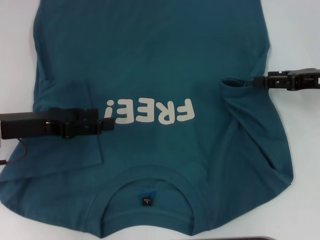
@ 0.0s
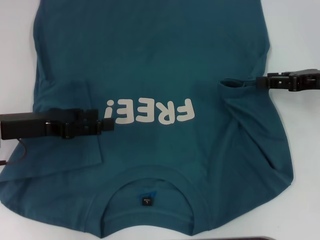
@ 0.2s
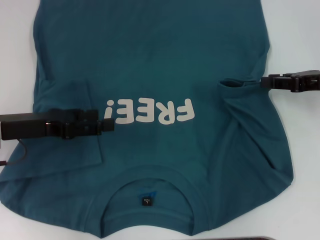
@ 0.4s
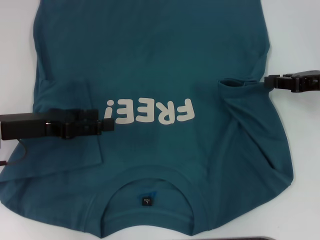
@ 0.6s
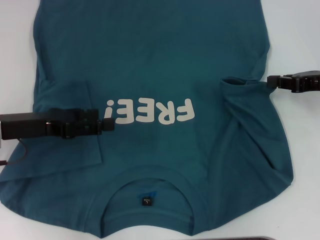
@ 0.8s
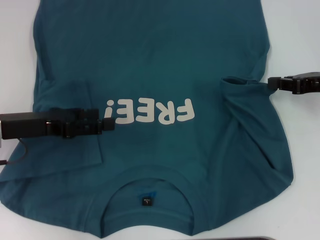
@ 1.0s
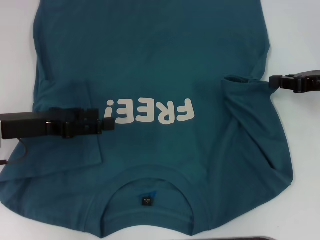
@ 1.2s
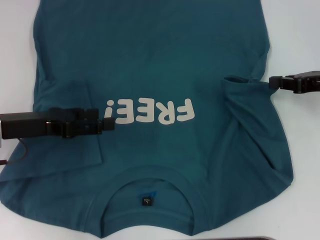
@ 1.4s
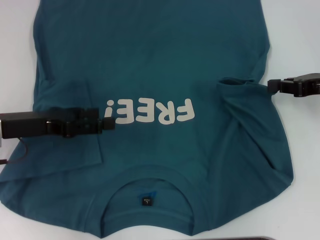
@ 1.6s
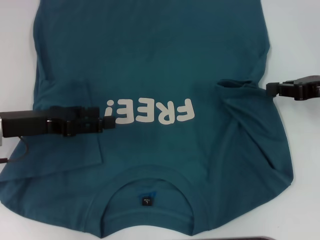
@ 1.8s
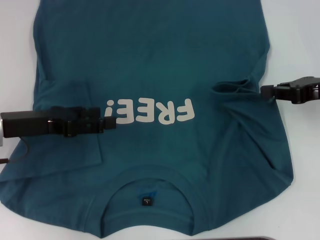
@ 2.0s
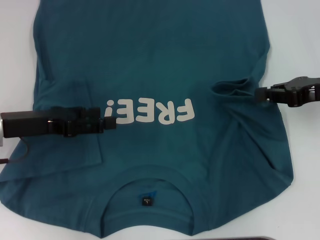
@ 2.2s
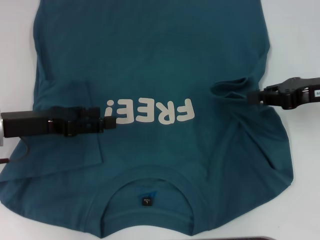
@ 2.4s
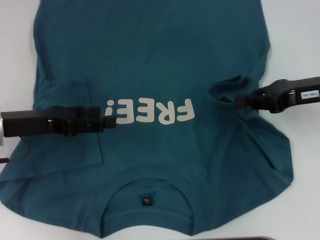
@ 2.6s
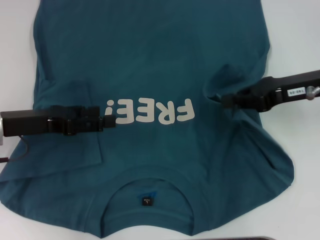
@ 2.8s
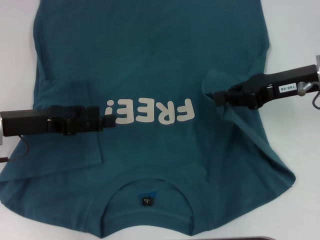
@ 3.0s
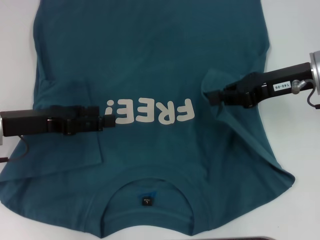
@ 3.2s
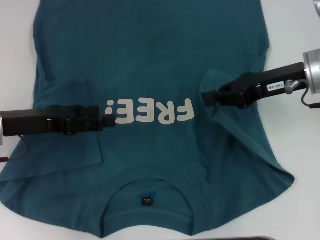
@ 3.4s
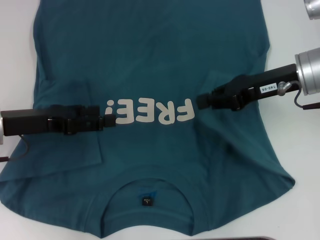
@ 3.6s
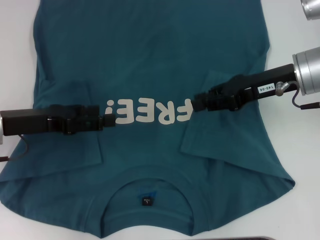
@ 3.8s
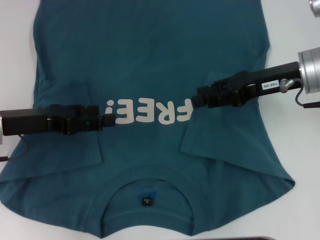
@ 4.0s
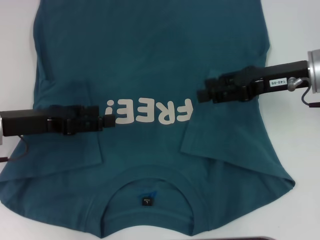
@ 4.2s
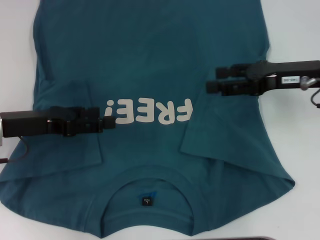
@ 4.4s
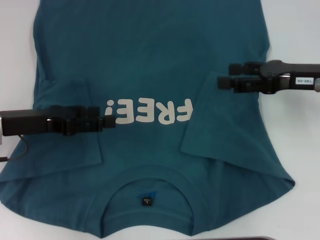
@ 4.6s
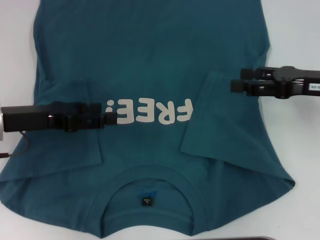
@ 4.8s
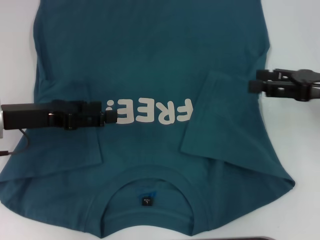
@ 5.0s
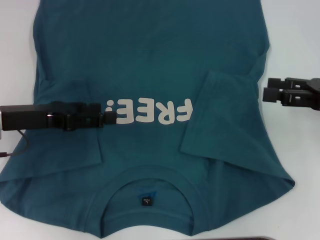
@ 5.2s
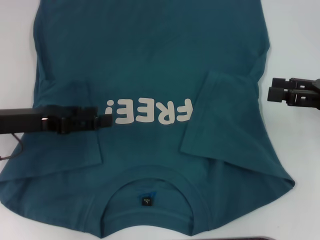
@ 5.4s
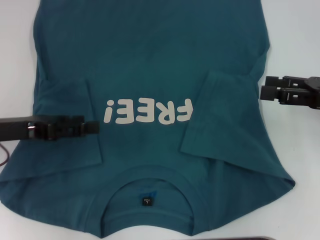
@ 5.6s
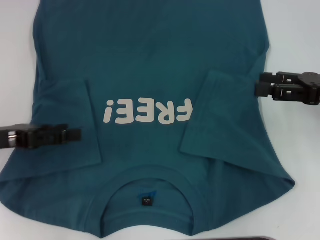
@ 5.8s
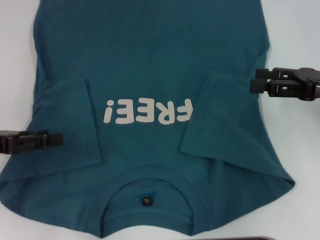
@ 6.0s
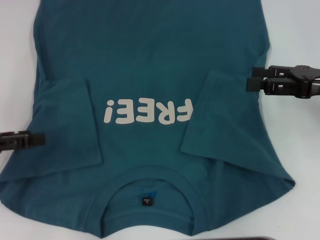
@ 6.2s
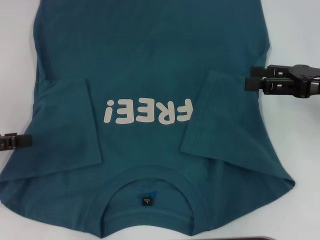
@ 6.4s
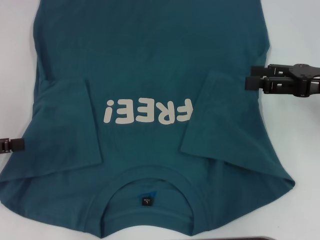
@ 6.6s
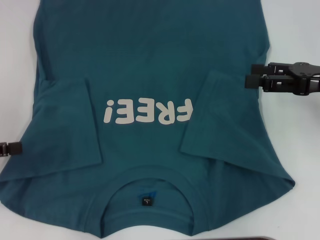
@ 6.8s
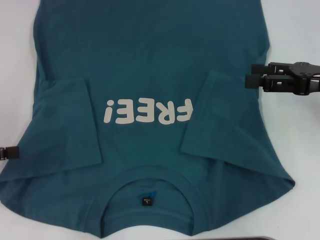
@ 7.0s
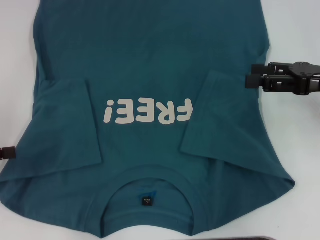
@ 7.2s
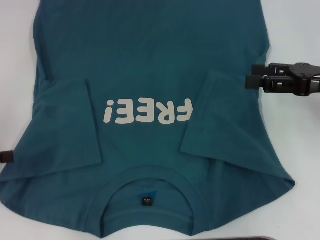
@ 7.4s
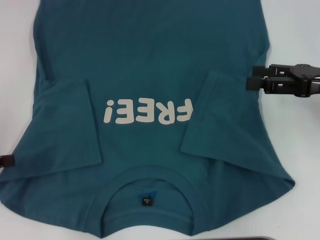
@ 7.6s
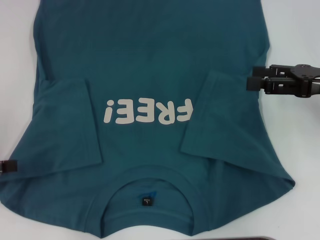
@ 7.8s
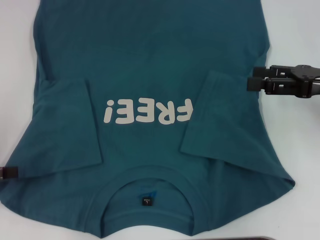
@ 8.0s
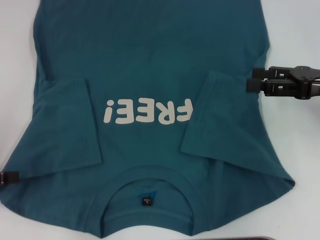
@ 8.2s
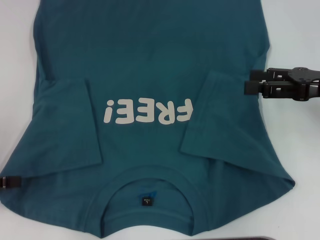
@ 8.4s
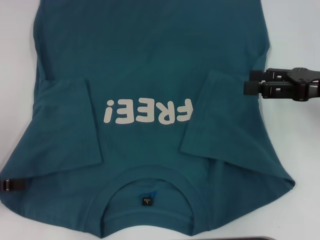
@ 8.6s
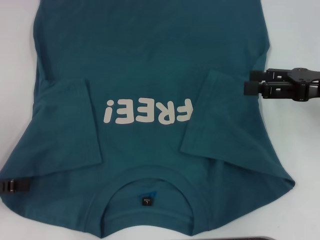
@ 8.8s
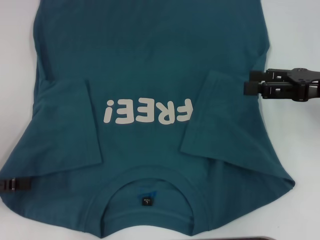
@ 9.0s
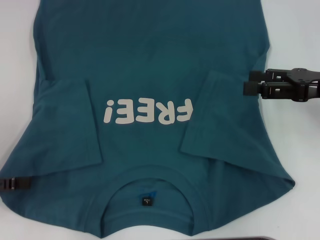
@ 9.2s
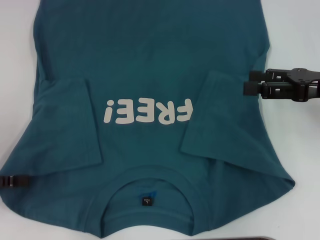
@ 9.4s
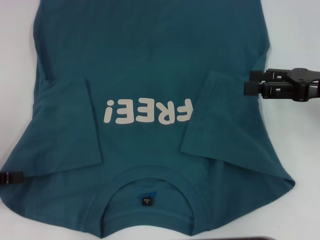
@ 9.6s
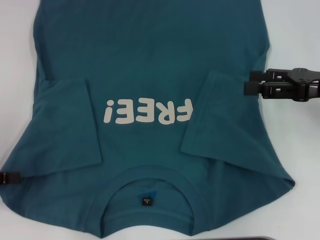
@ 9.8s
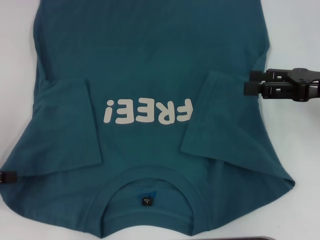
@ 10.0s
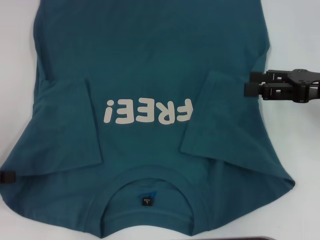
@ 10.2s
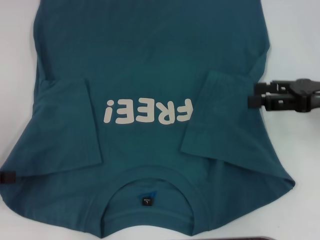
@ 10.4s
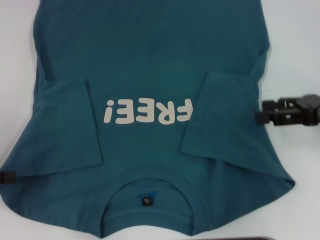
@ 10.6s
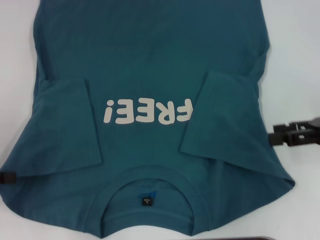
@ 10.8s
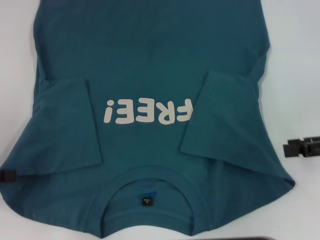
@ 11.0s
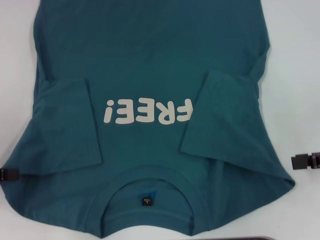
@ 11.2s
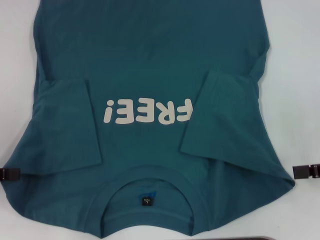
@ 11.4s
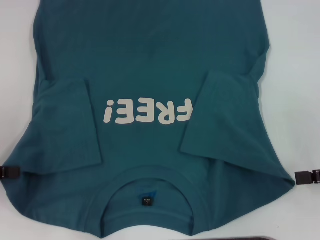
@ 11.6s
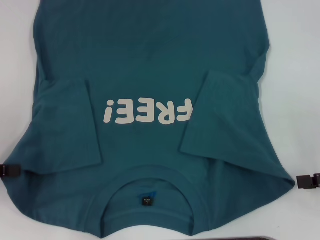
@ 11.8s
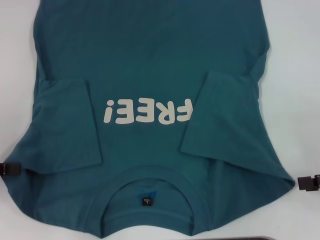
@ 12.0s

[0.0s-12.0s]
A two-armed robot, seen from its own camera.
Step, 0.0s to 10.2s: Grab the bottom left corner with your left hand.
0.0s to 1.6s: The right gripper closes up.
1.6s to 3.0s: The right gripper shifts roughly 10 cm to the left.
3.0s to 4.4s: The right gripper opens.
4.4s to 6.0s: The right gripper travels to the right by about 5 cm, while the left gripper is displaced to the left by approximately 5 cm.
6.0s to 7.6s: The left gripper is displaced to the left by some 5 cm.
7.6s to 9.0s: There are only small adjustments of the grippers.
10.4s to 12.0s: The right gripper shifts approximately 10 cm backward and to the right.

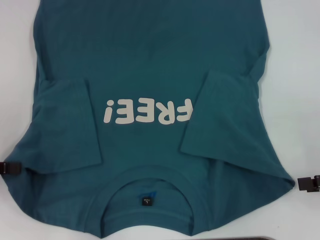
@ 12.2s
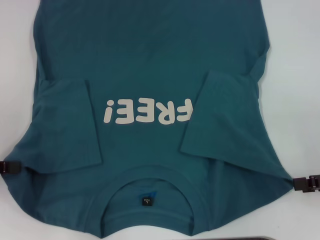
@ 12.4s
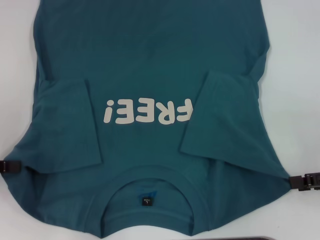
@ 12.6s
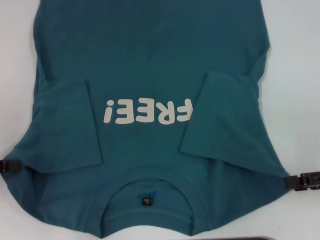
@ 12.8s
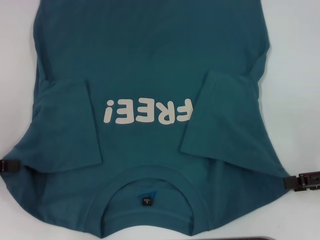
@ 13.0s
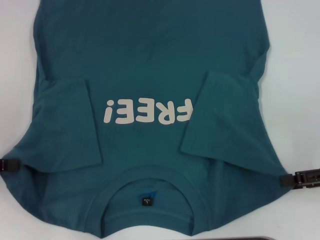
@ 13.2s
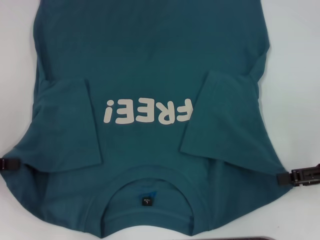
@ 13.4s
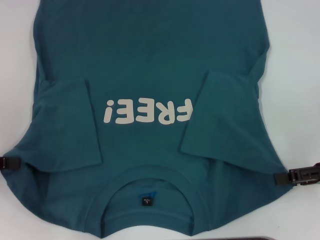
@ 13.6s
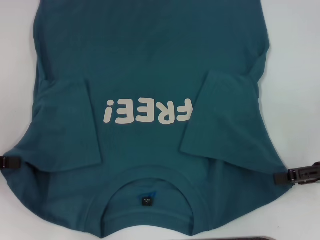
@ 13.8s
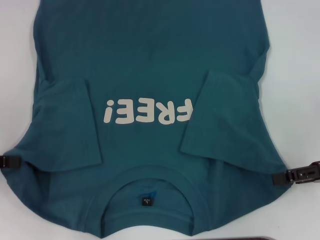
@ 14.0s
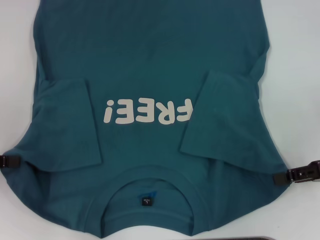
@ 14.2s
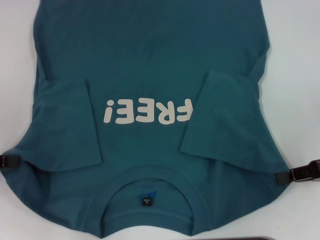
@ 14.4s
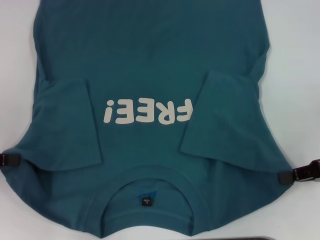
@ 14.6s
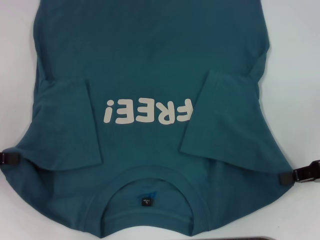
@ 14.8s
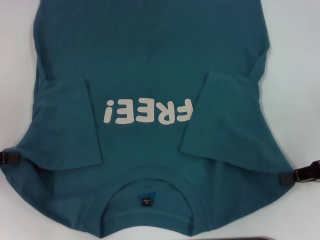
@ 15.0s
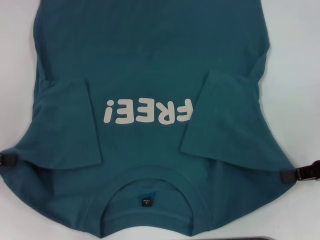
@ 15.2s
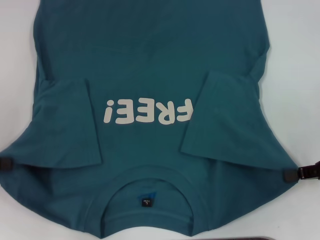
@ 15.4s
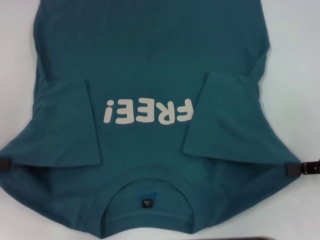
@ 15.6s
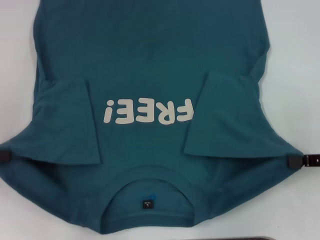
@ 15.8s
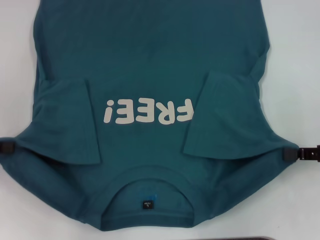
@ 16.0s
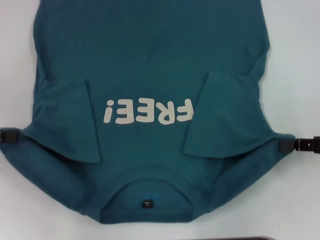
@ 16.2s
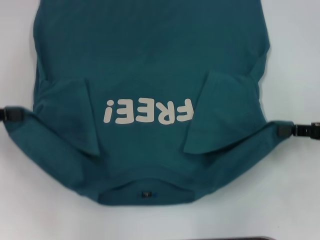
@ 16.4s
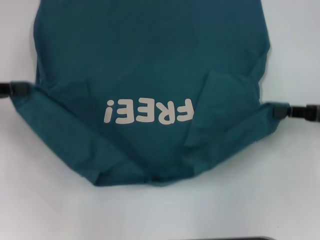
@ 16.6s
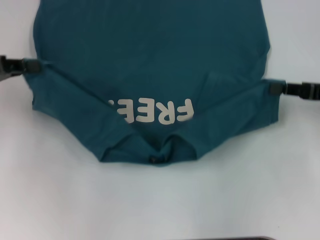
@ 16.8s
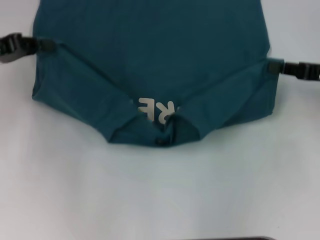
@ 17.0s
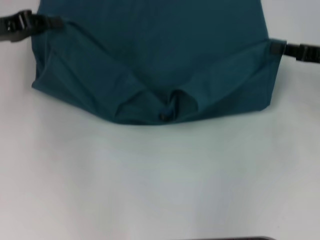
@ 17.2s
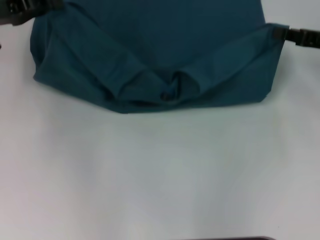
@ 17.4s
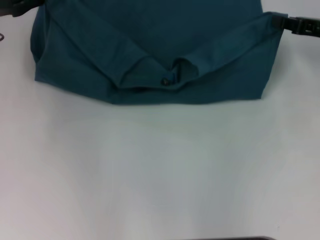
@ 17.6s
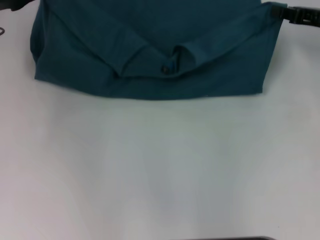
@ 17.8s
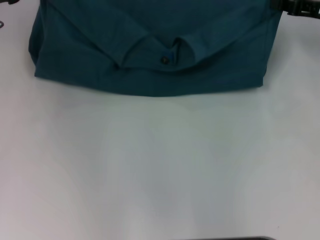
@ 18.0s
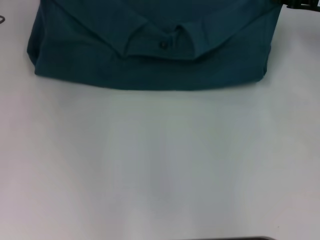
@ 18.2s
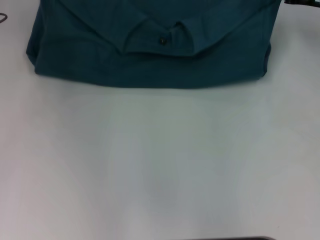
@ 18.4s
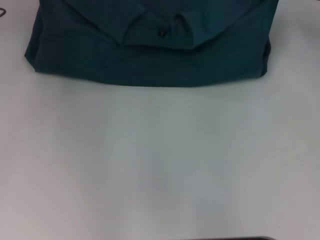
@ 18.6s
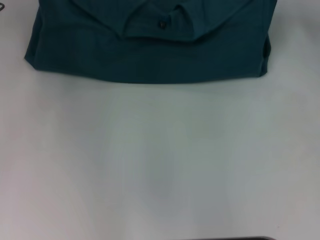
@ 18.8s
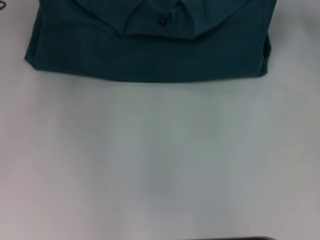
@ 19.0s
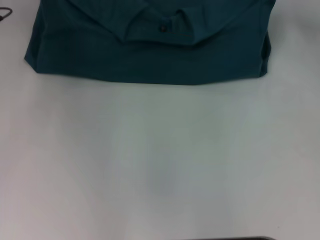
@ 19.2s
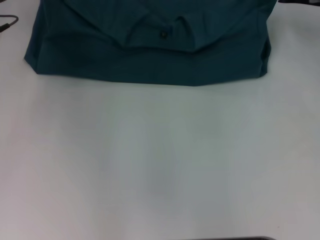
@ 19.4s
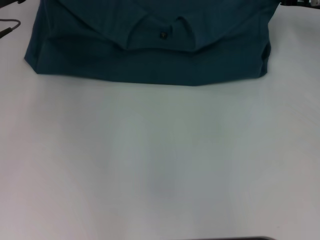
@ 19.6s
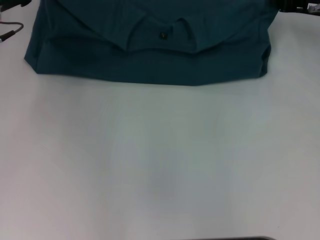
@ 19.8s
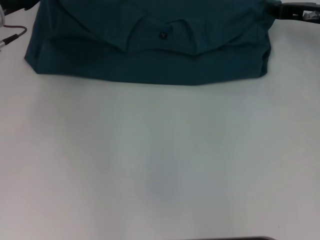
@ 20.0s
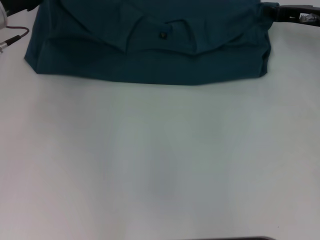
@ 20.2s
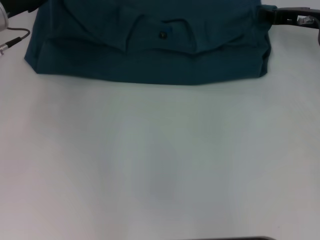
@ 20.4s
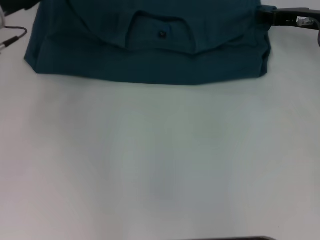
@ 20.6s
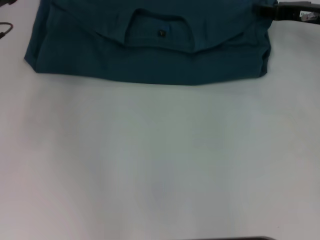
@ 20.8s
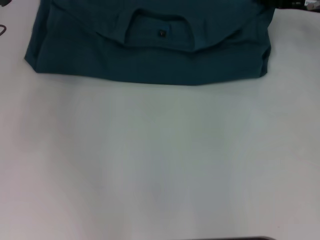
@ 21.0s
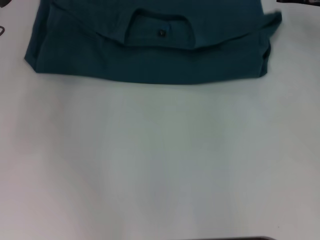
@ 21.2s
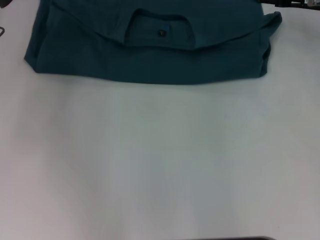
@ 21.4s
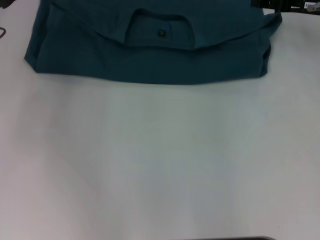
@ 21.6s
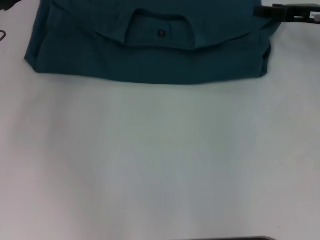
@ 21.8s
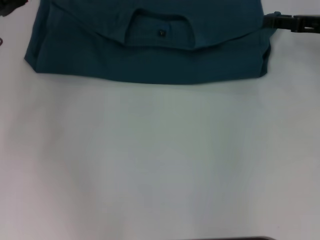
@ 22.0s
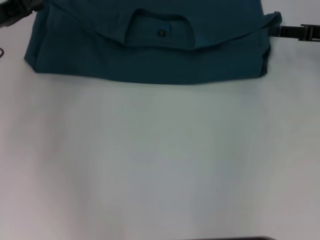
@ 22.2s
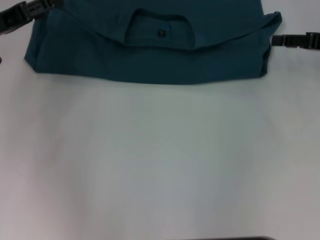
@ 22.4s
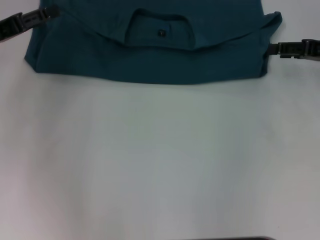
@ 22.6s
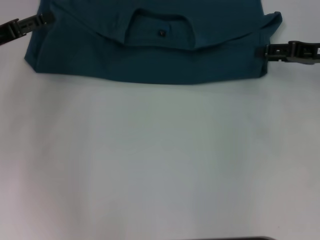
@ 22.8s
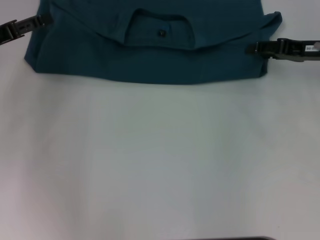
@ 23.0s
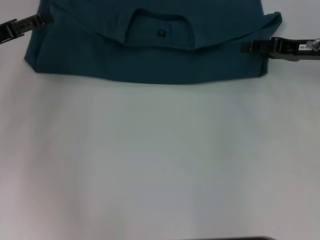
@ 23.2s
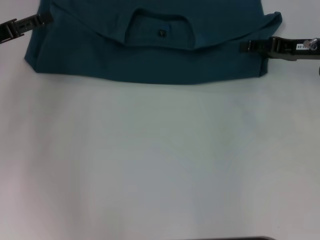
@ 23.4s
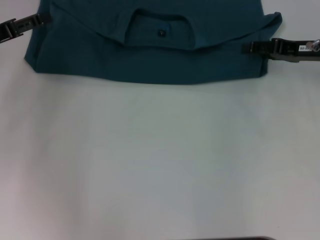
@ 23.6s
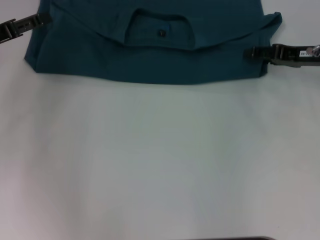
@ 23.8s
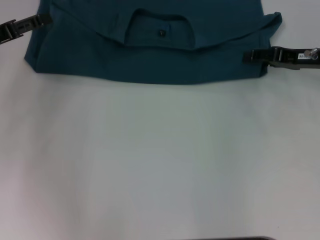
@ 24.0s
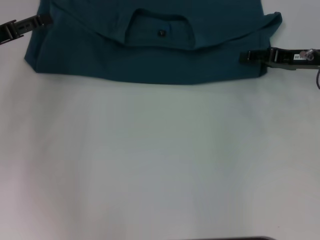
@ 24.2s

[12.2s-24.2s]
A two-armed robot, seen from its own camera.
Step, 14.8s to 21.6s: Fold the clothes to the left.
Step, 14.8s to 21.6s: Fold the clothes to the right.
12.2s to 13.8s: The grippers move only a little.
13.8s to 15.2s: The right gripper closes its fingers.
15.2s to 16.6s: The left gripper shifts some 5 cm forward.
16.6s to 18.2s: The right gripper travels forward by approximately 15 cm; the left gripper moves forward and to the right, approximately 15 cm.
18.2s to 19.8s: The grippers make only small movements.
19.8s to 21.2s: The right gripper opens its fingers. Meanwhile the left gripper opens its fingers.
21.2s to 22.6s: The right gripper moves backward, about 5 cm.
22.6s to 24.2s: The right gripper moves some 5 cm.
